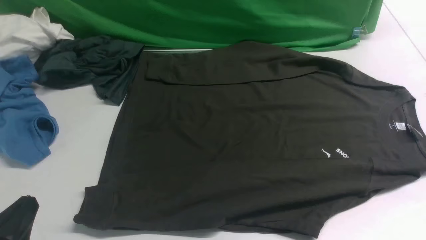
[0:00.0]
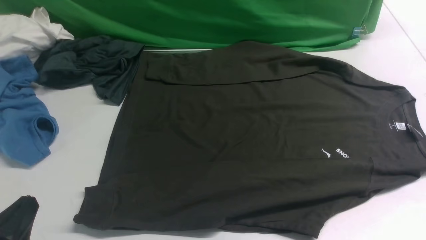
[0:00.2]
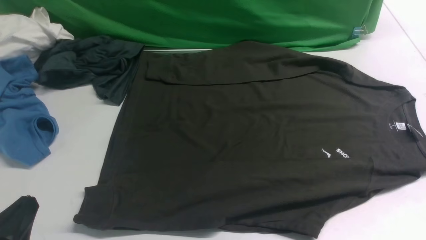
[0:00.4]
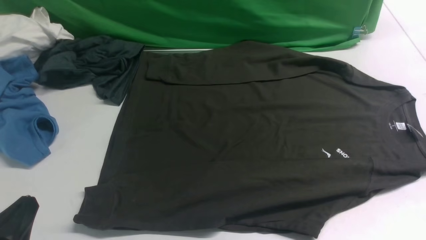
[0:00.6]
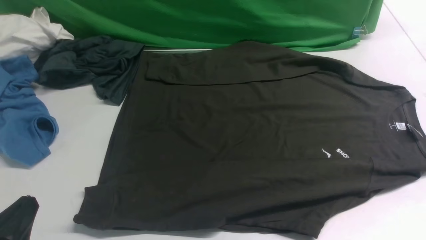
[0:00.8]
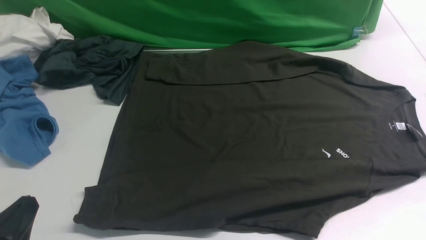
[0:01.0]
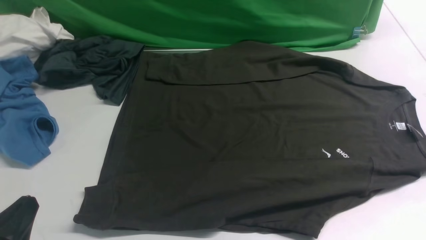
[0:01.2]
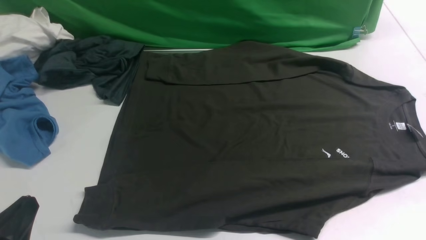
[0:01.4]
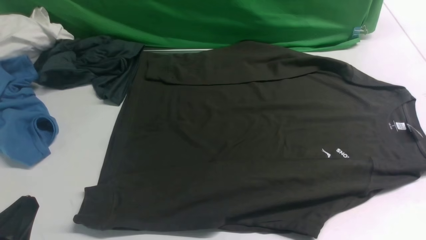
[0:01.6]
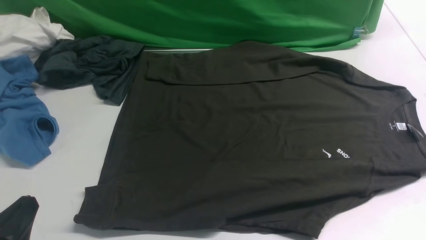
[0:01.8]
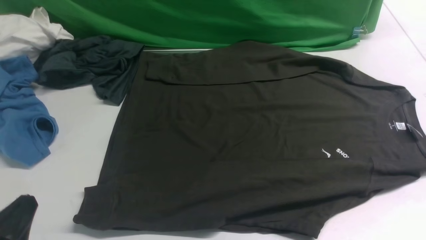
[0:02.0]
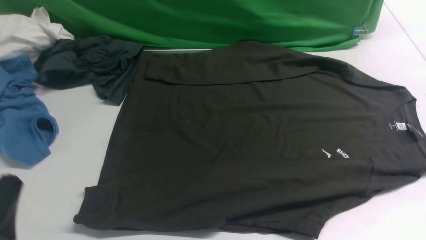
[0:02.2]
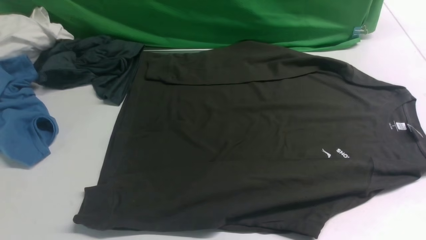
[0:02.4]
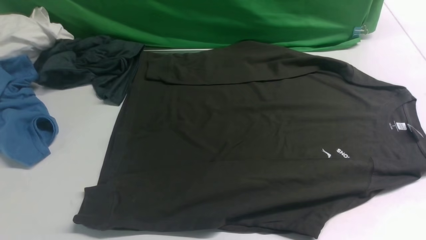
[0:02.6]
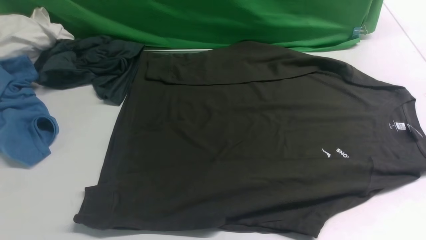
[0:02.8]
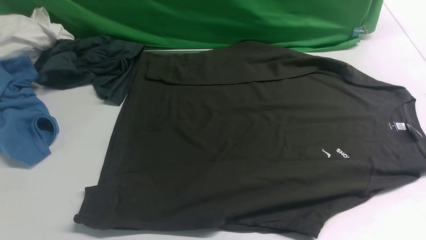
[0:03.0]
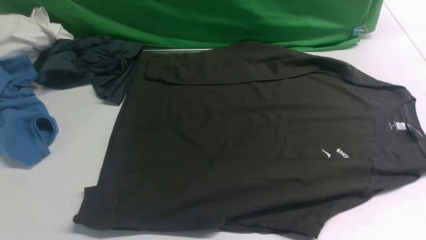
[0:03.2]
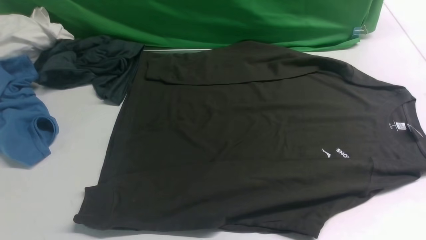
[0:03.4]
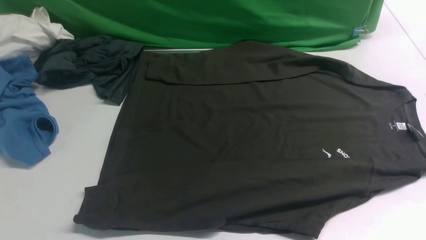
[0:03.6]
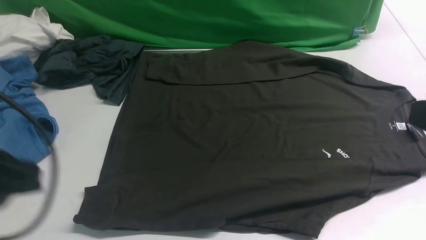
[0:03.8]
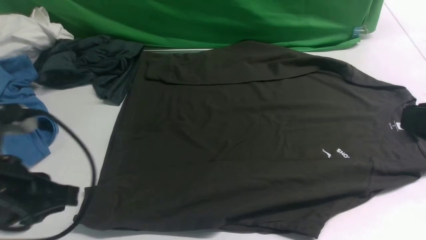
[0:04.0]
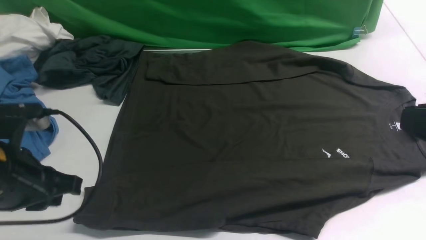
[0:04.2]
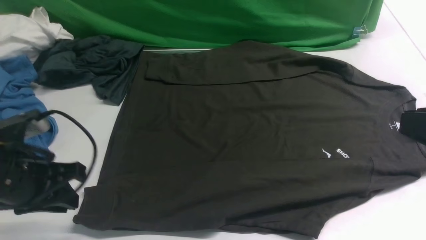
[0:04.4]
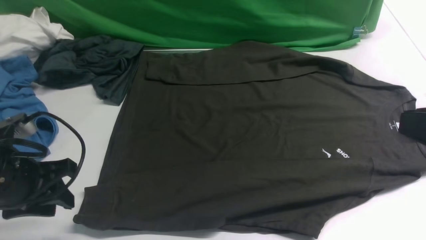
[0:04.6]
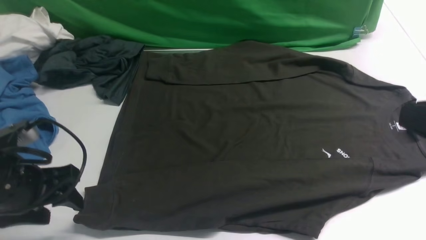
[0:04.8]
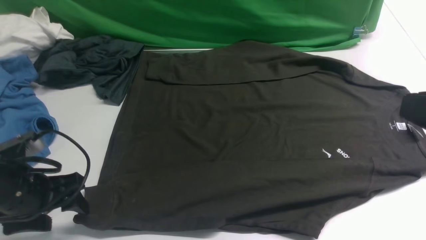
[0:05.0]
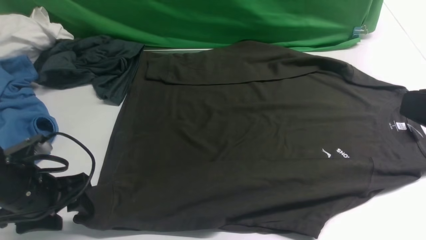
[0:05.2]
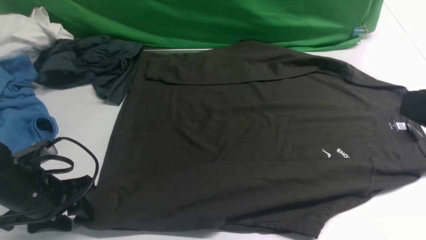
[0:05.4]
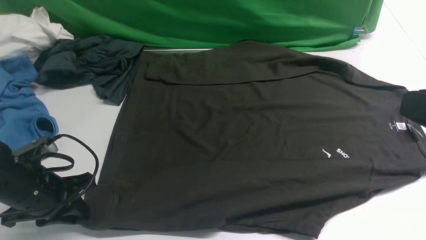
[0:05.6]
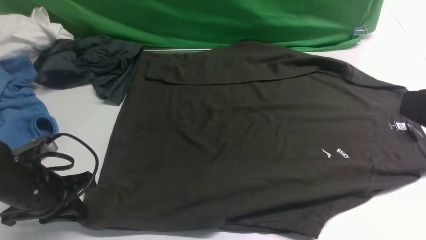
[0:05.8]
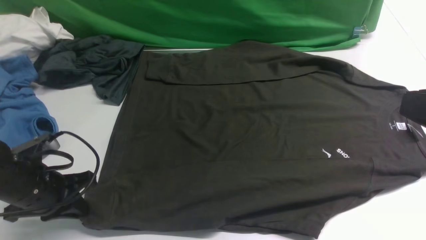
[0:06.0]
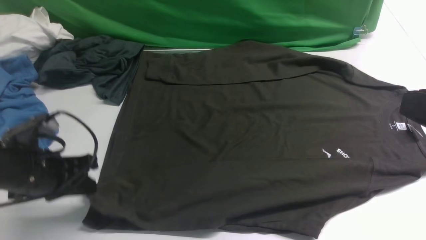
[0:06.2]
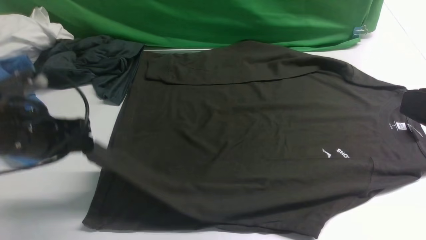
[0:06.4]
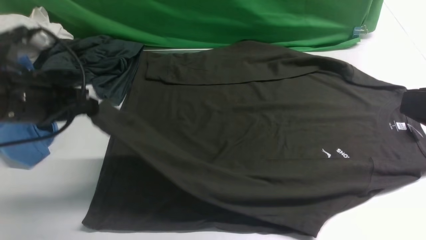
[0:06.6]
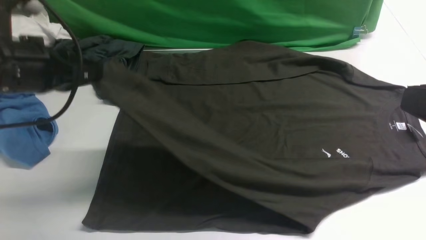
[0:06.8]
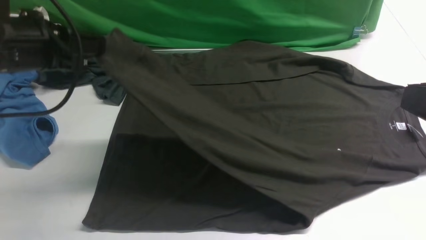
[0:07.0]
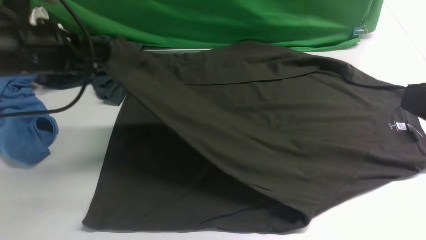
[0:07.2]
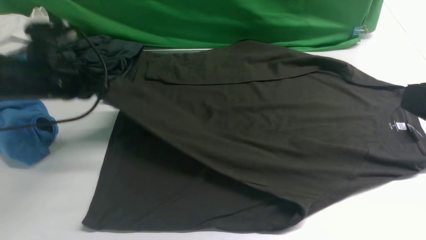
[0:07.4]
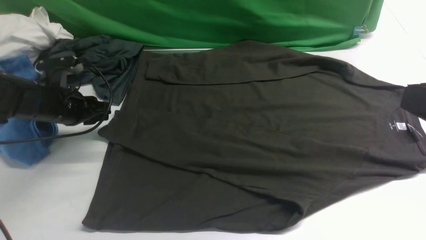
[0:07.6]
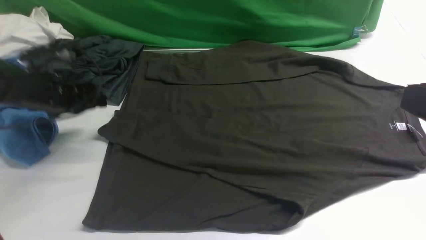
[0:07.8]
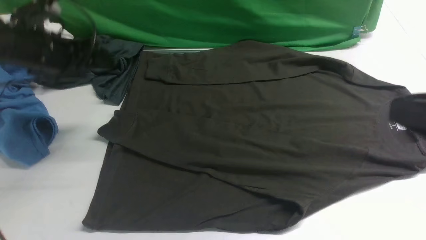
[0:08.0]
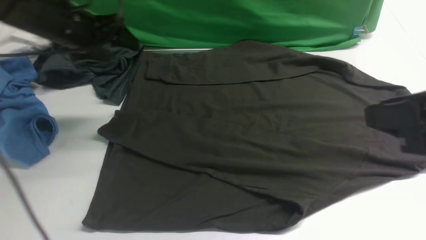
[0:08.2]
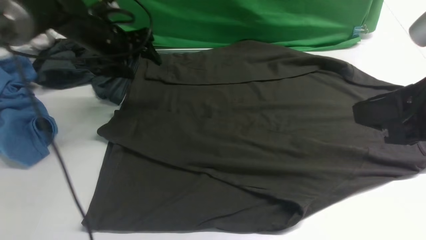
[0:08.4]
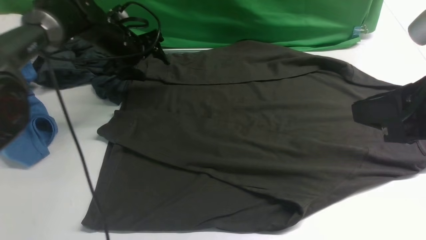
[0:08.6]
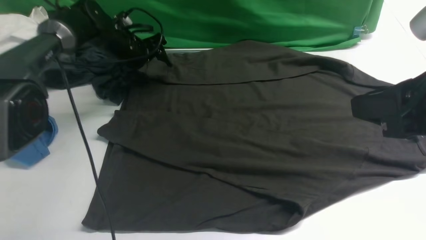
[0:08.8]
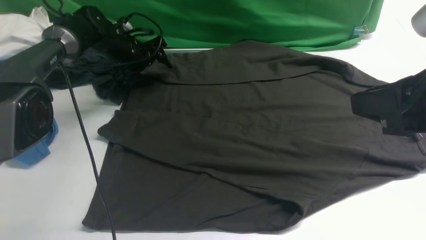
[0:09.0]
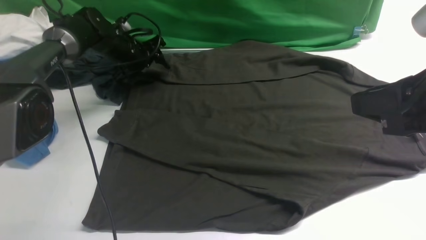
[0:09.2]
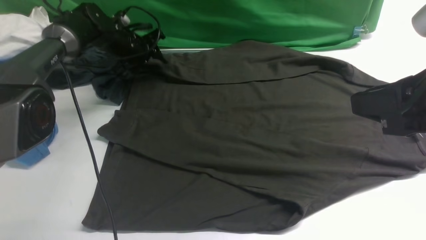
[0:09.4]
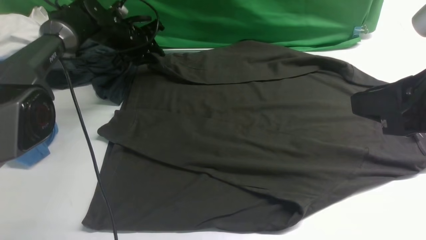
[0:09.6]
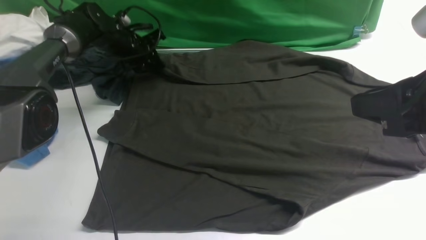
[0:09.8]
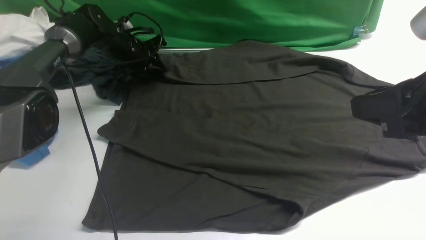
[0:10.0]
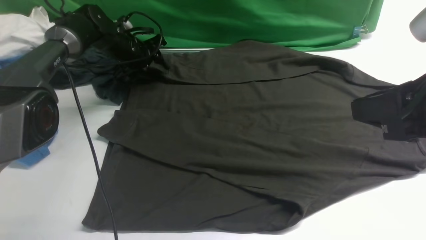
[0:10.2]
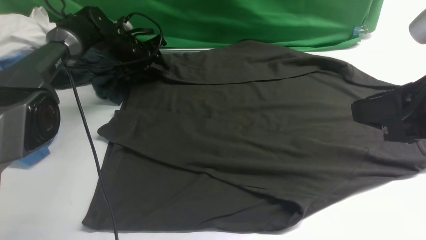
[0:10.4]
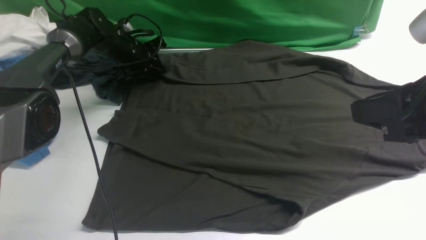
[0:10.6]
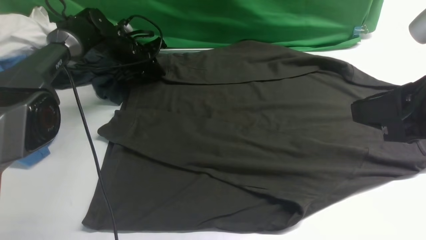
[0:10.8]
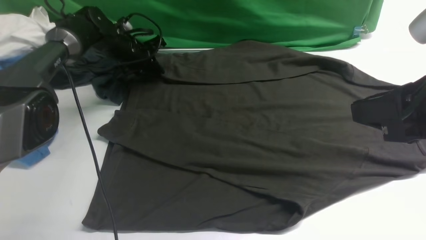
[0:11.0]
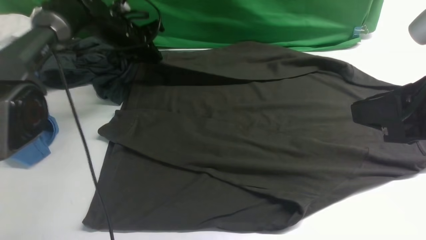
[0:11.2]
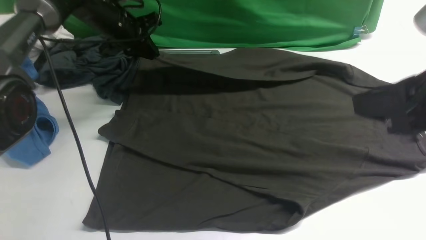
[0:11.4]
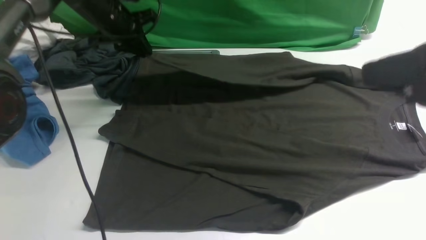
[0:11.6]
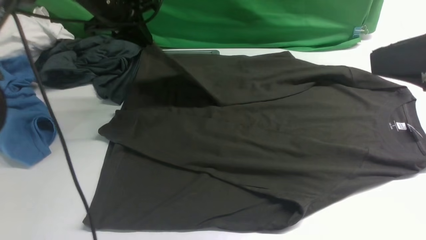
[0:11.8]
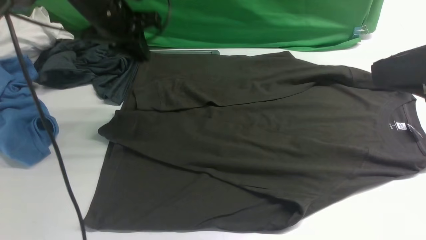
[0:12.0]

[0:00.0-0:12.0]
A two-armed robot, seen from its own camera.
Step, 0.0 to 6.2 s: use the left arm to clamp the cuff closest to it.
Step, 6.4 to 7.6 s: use the left arm to drag and place the cuff at the centered position on the left edge of the fabric.
Step, 8.0 to 11.0 s: use the left arm to clamp the cuff farthest from it.
0.0 to 1.6 s: Neither gripper changes place.
1.6 to 3.0 s: The left gripper goes some 30 cm upward.
3.0 to 4.4 s: The left gripper heads downward and forward, covering approximately 30 cm. The right gripper moves downward, to the left and forward, approximately 15 cm.
4.4 to 6.0 s: The left gripper moves downward, approximately 5 cm, and opens, then closes again.
6.0 to 7.6 s: The left gripper shifts approximately 15 cm forward, travels upward and back again, approximately 15 cm each way, and opens up.
7.6 to 9.0 s: The left gripper travels forward and to the right by some 20 cm, and opens up; the right gripper moves forward, some 5 cm.
9.0 to 10.4 s: There are only small adjustments of the grippers.
10.4 to 12.0 s: The left gripper shifts some 15 cm upward and backward, and closes its fingers, while the right gripper moves upward, approximately 5 cm.

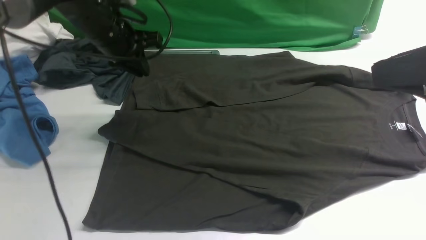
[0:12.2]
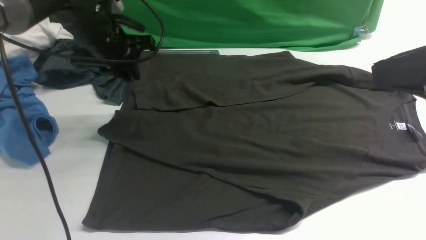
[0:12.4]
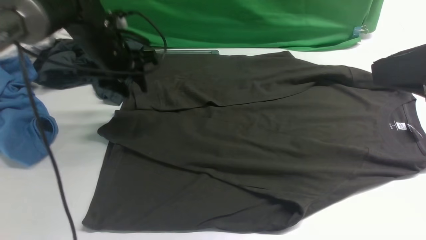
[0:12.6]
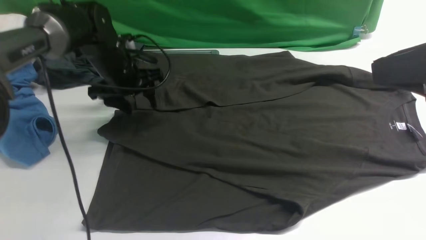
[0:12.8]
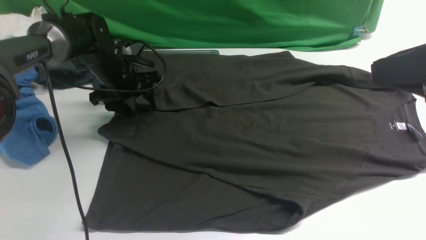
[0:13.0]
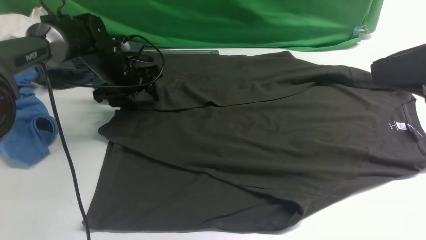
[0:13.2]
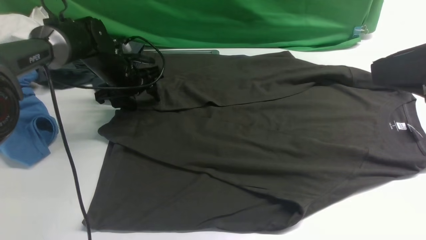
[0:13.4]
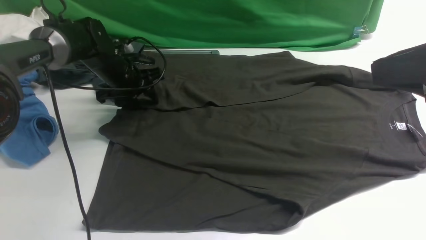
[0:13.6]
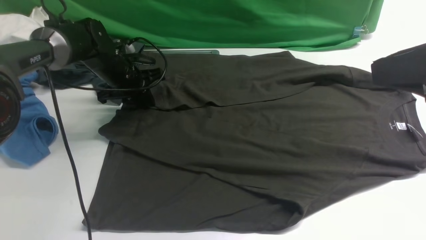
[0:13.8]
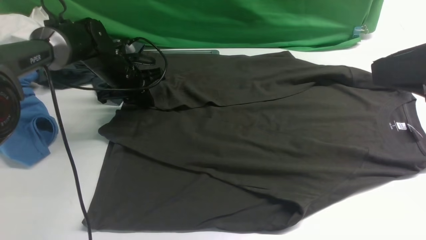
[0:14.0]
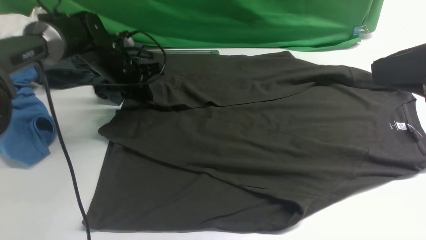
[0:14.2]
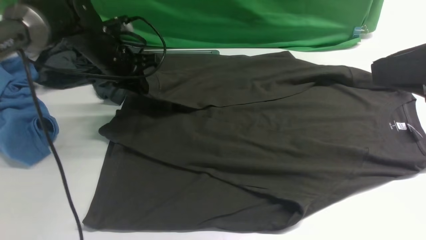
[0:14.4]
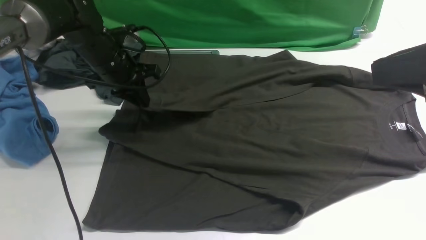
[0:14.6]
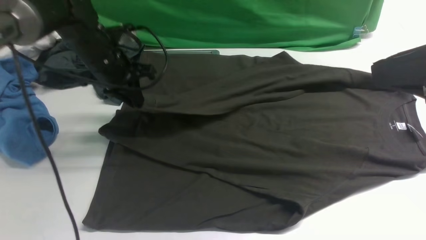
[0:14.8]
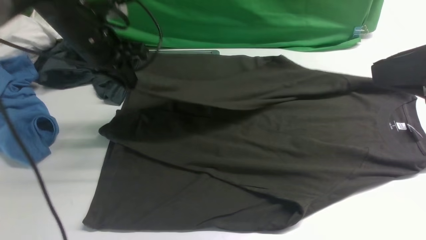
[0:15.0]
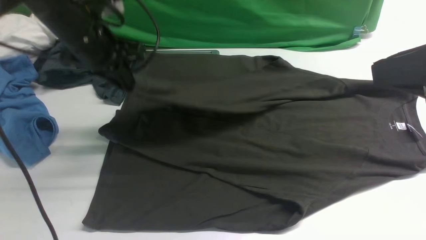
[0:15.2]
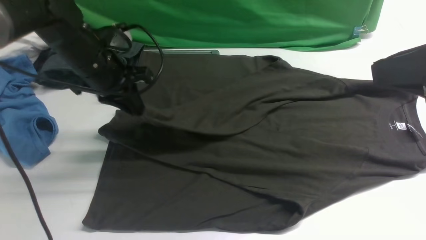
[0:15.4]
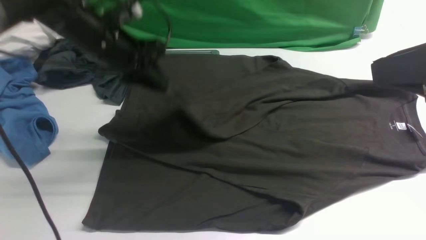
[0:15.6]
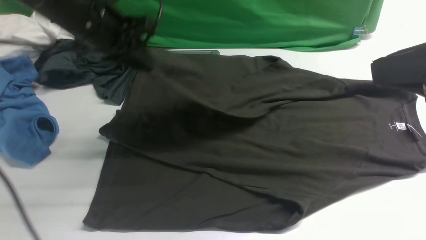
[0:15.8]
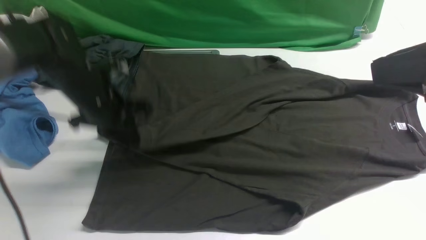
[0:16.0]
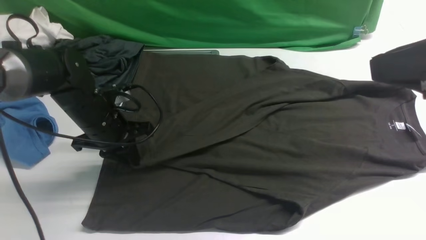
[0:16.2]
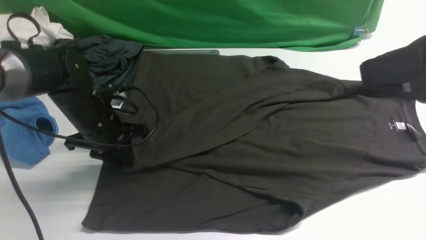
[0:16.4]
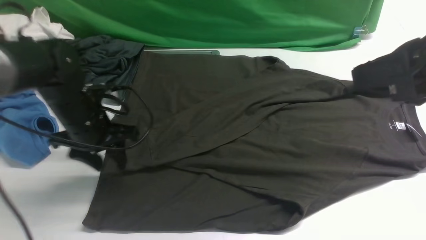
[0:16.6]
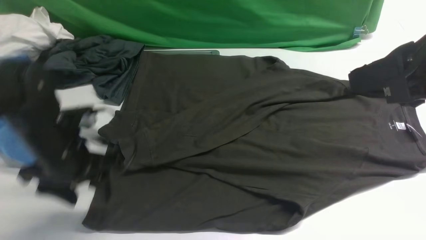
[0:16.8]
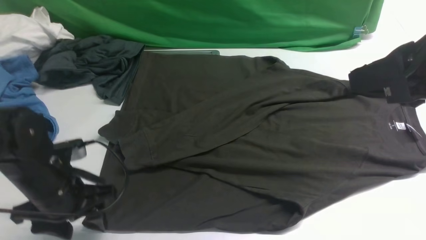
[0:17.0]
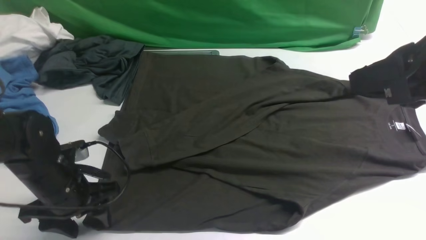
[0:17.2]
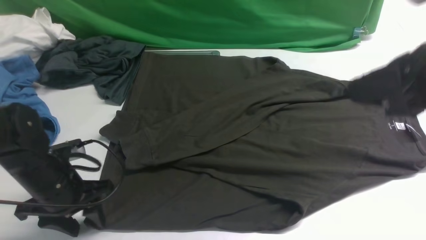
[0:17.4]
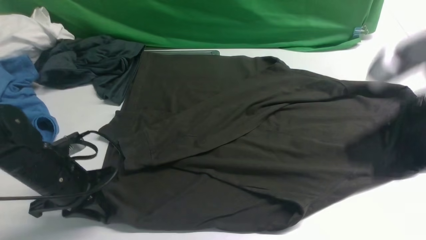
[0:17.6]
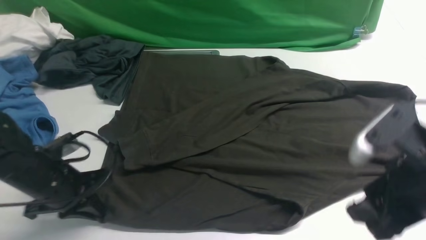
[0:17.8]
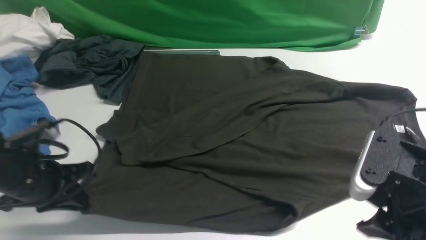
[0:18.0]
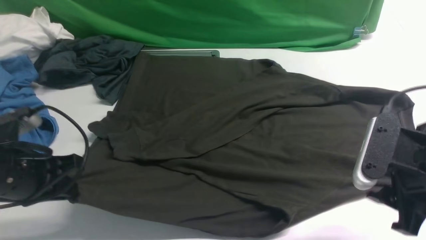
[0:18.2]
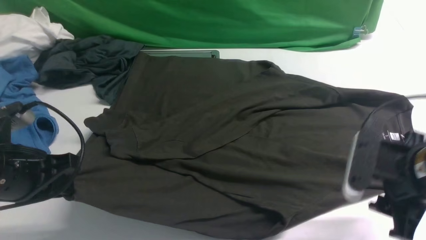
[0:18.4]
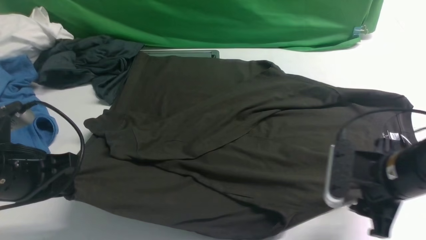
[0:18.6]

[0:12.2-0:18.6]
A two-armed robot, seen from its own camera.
Step, 12.2 to 16.6 s: use the left arm to drag and drop the cuff onto the cuff closest to the left arm.
12.2 to 13.8 s: The left gripper heads downward, covering some 10 cm, and opens and closes again.
13.8 to 15.4 s: The left gripper moves upward and backward, about 15 cm.
15.4 to 17.0 s: The left gripper travels backward and downward by approximately 20 cm, and opens its fingers.
17.0 to 18.6 s: The right gripper heads downward, covering roughly 20 cm, and opens, while the left gripper goes approximately 5 cm upward, and closes up.
